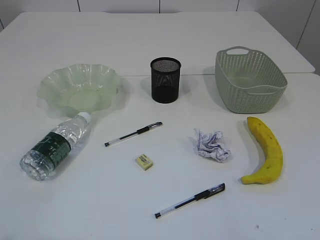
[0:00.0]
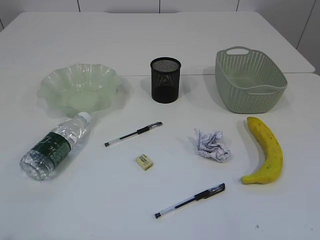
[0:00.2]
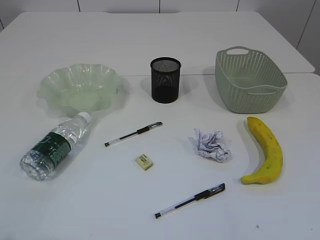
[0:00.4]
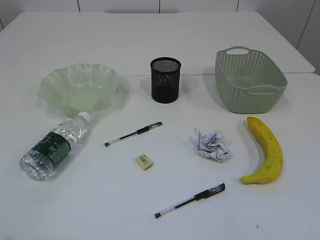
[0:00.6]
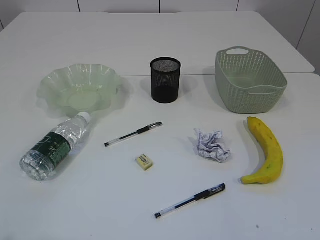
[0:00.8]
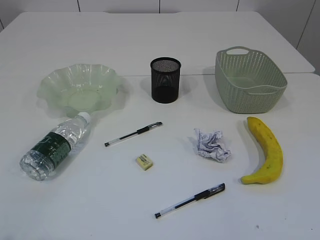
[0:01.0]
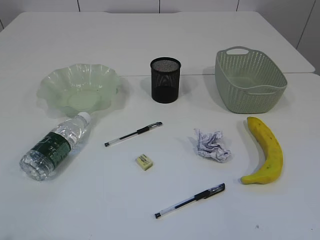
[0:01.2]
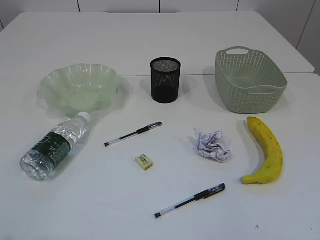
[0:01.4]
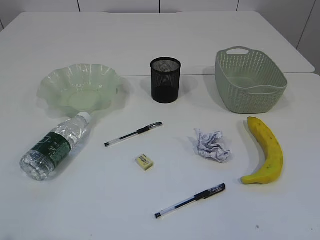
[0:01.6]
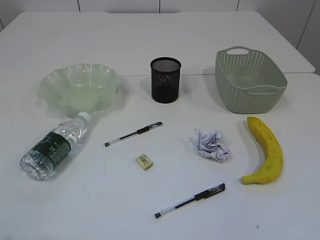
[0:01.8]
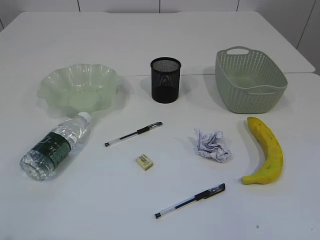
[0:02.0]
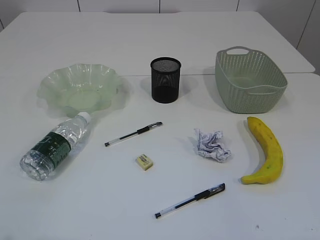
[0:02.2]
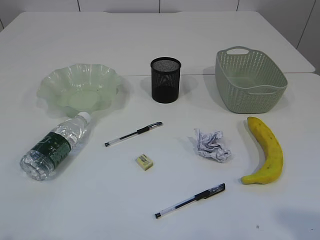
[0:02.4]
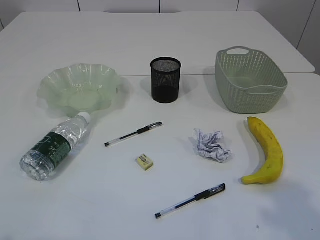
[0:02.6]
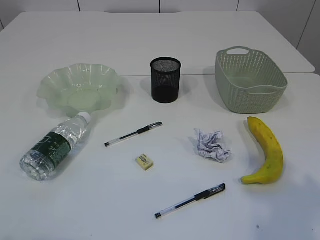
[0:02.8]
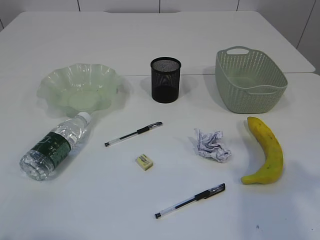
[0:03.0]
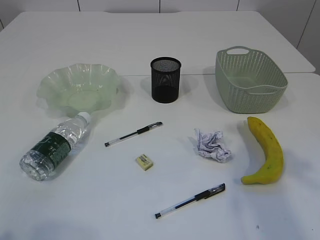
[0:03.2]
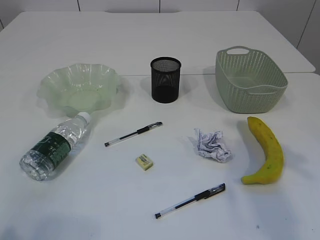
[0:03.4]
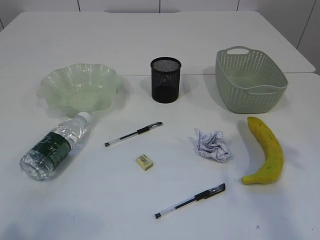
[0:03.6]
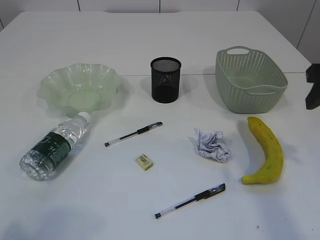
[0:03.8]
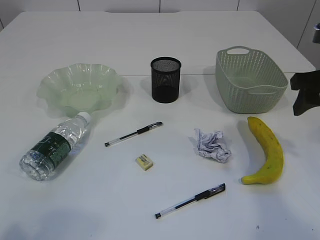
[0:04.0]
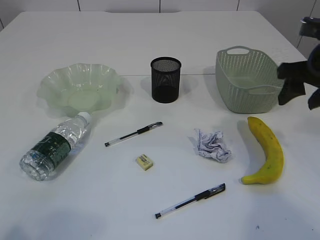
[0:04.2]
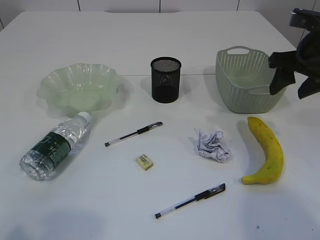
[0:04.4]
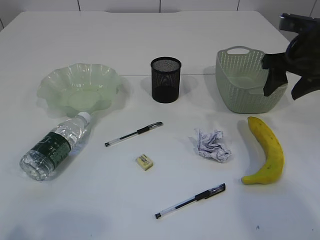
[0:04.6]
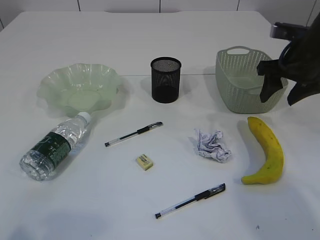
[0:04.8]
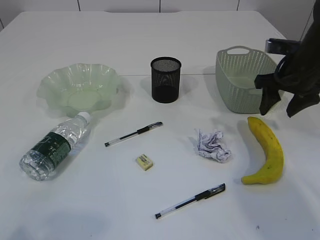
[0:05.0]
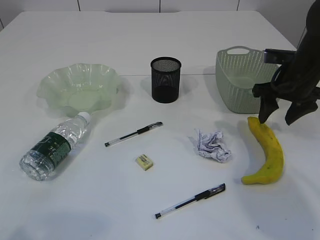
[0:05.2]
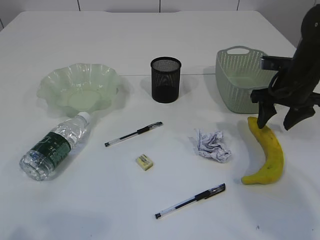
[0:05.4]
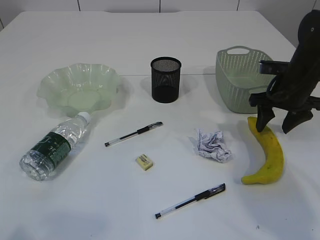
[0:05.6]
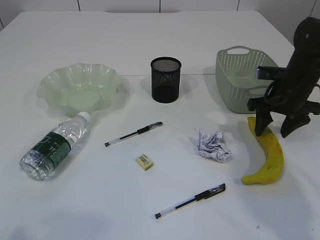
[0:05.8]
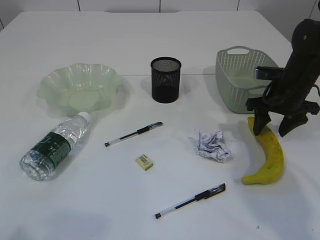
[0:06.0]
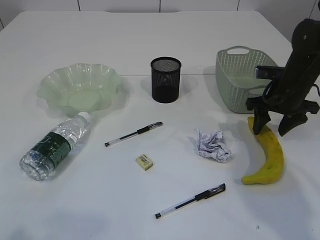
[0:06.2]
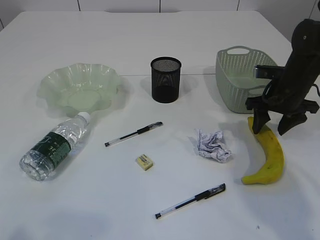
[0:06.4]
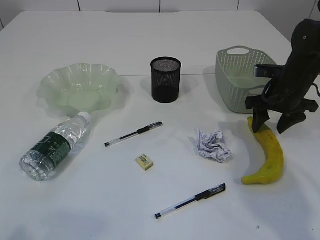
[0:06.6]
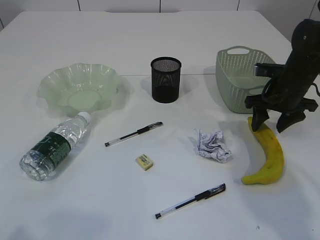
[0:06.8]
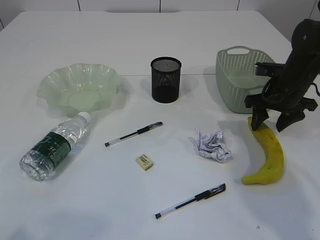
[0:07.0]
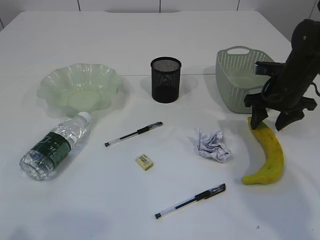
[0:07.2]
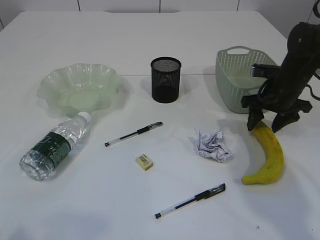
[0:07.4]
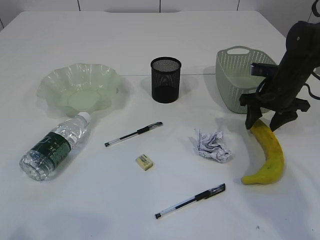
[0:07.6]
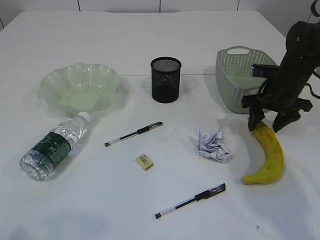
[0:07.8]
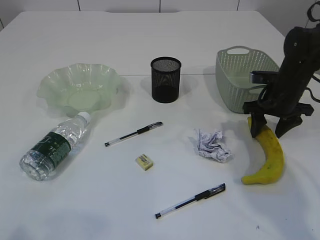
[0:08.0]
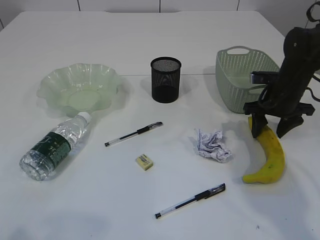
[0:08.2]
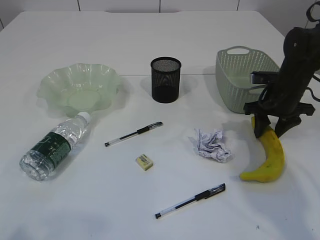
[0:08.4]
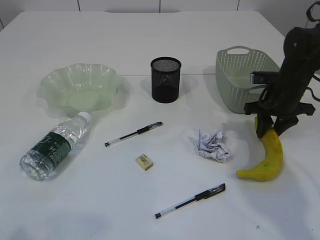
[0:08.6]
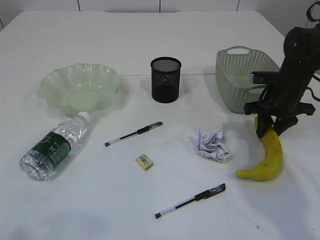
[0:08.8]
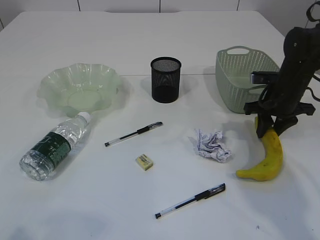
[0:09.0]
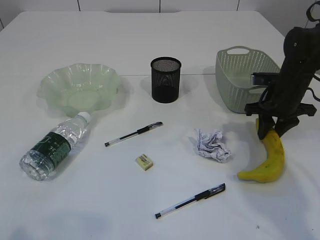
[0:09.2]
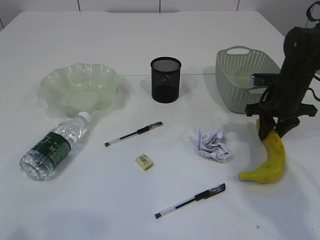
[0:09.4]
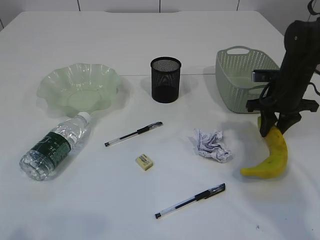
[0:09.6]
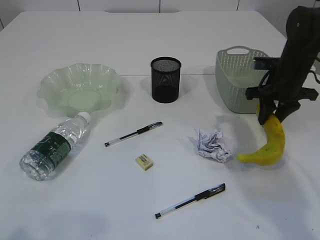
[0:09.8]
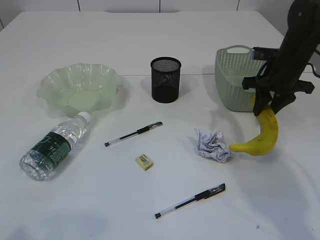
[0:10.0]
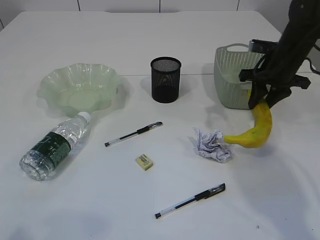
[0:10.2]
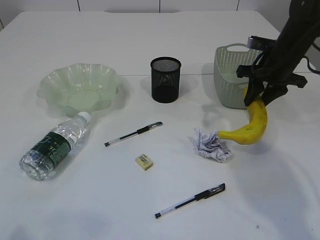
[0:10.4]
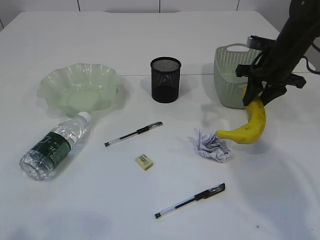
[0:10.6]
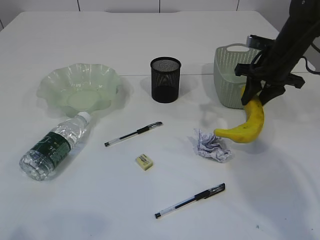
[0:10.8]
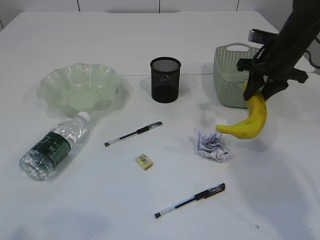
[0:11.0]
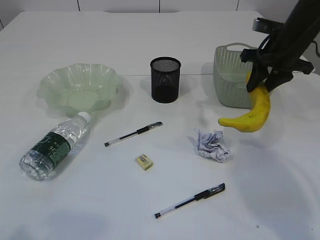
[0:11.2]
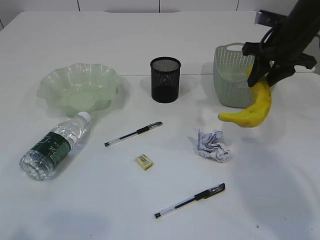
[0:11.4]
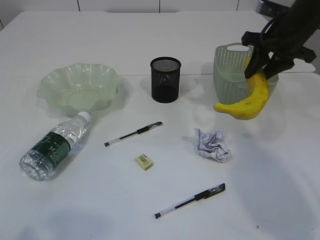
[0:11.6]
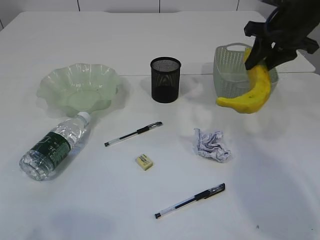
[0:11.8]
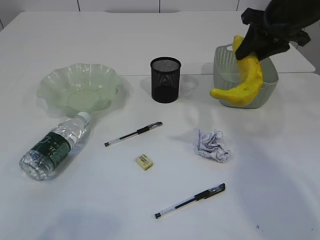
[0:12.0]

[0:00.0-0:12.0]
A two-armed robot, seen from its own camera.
0:01.6 to 0:03.0: The right gripper travels forward and upward by about 20 cm.
0:03.0 to 0:04.4: The right gripper moves forward and downward, about 20 cm.
0:04.4 to 0:06.0: The right gripper shifts roughly 10 cm downward and forward.
0:06.0 to 0:07.6: There are only small adjustments of the grippers.
0:07.6 to 0:09.0: The right gripper closes up.
0:09.0 to 0:10.4: The right gripper heads upward, covering roughly 5 cm.
0:10.4 to 0:12.0: The right gripper travels upward by approximately 10 cm.

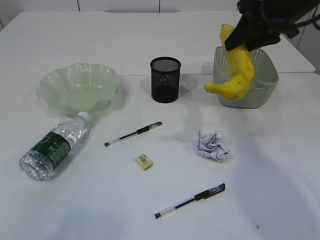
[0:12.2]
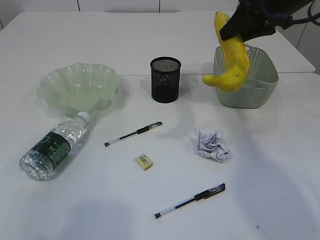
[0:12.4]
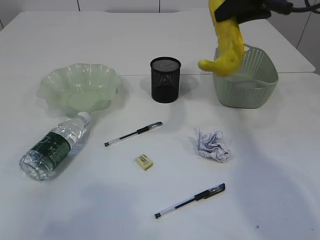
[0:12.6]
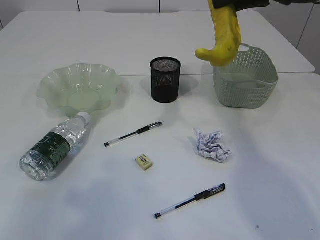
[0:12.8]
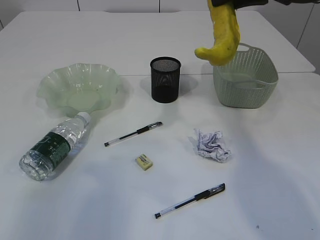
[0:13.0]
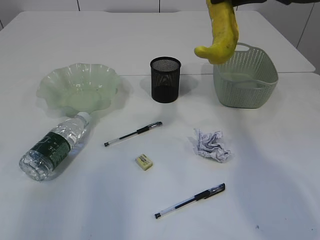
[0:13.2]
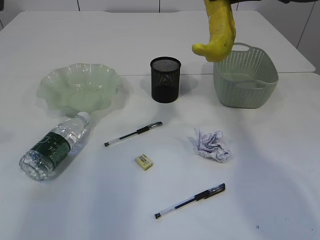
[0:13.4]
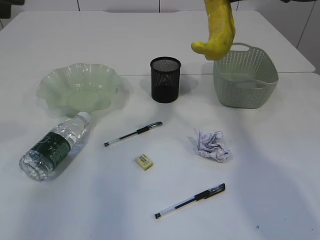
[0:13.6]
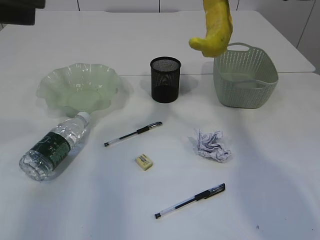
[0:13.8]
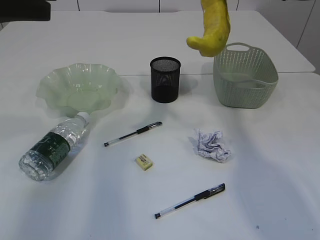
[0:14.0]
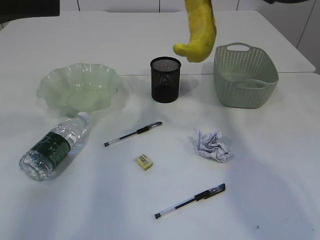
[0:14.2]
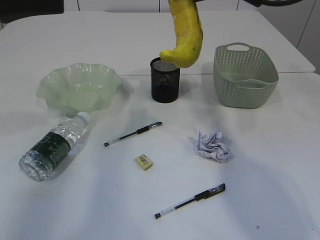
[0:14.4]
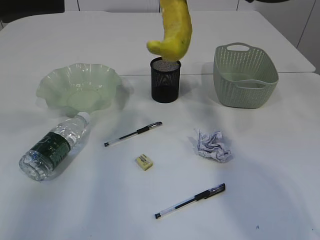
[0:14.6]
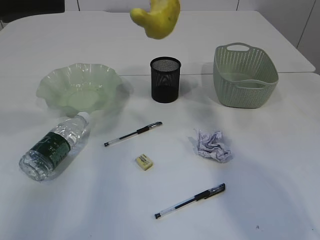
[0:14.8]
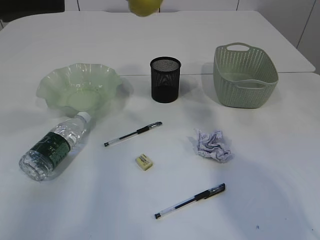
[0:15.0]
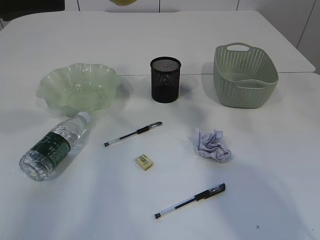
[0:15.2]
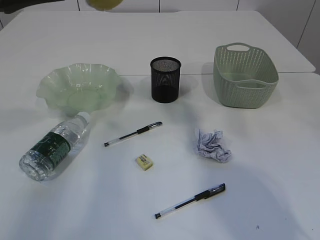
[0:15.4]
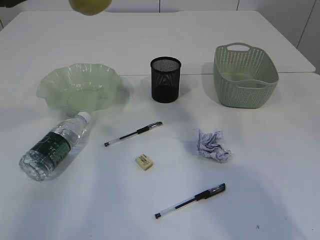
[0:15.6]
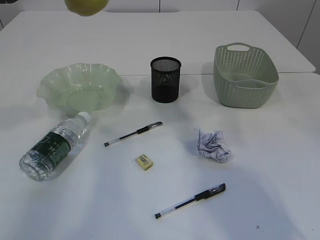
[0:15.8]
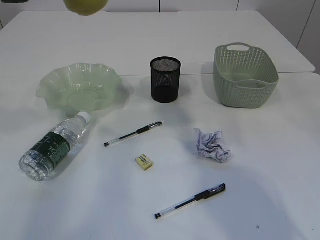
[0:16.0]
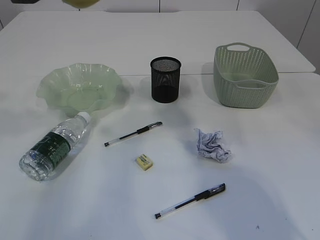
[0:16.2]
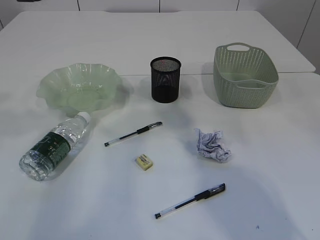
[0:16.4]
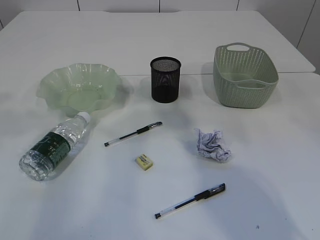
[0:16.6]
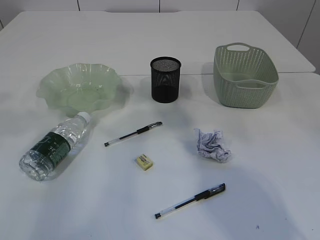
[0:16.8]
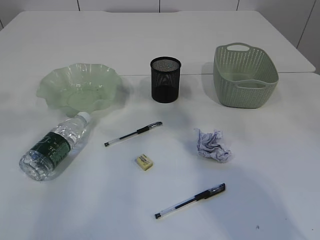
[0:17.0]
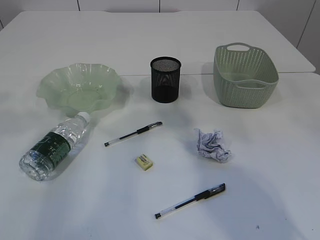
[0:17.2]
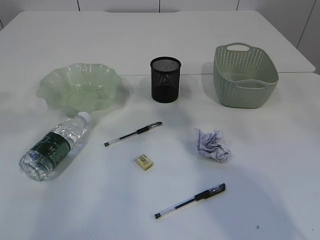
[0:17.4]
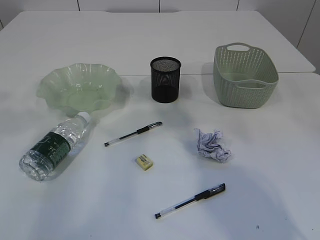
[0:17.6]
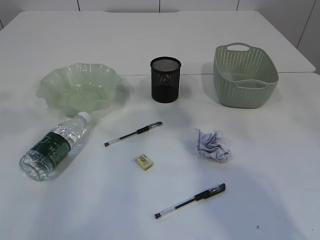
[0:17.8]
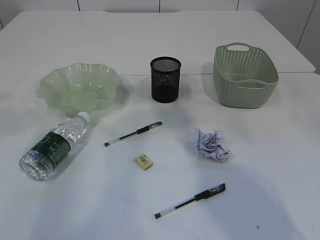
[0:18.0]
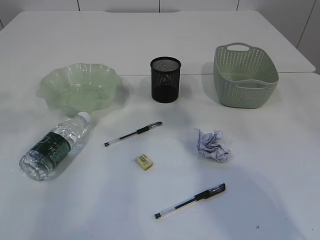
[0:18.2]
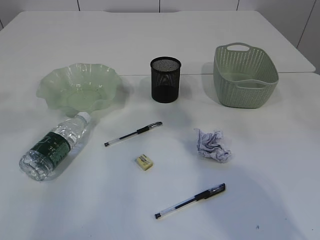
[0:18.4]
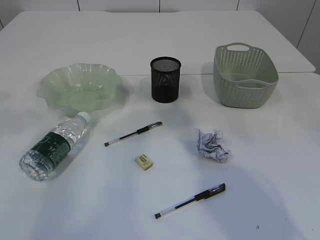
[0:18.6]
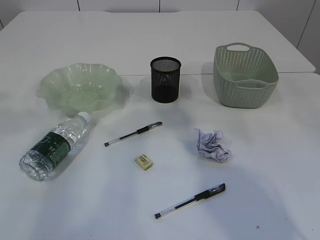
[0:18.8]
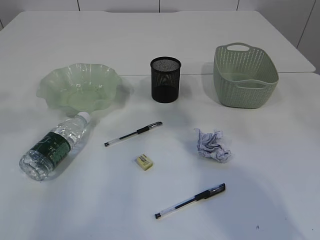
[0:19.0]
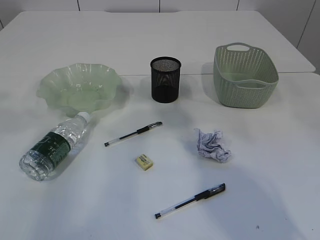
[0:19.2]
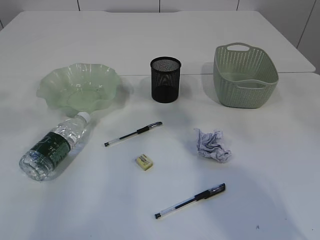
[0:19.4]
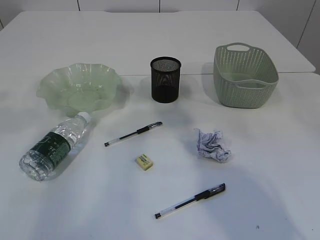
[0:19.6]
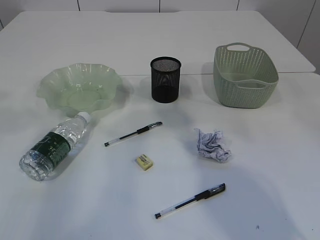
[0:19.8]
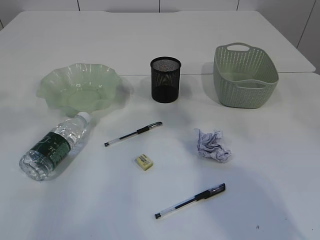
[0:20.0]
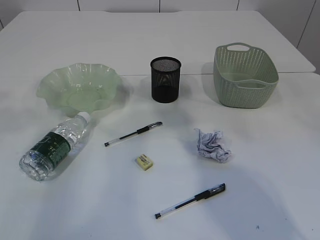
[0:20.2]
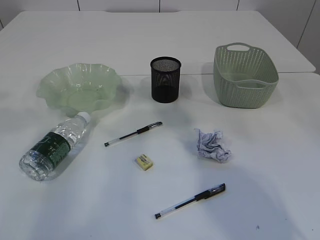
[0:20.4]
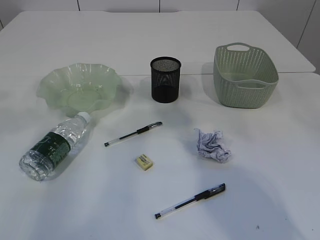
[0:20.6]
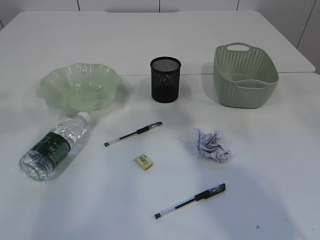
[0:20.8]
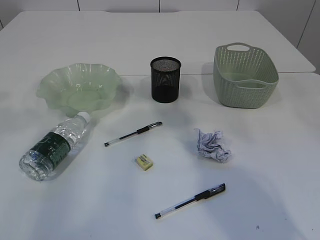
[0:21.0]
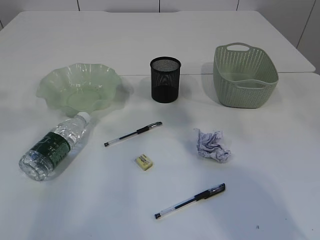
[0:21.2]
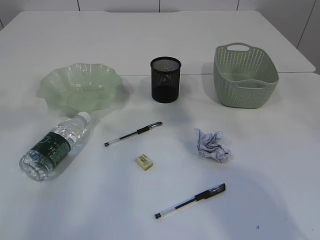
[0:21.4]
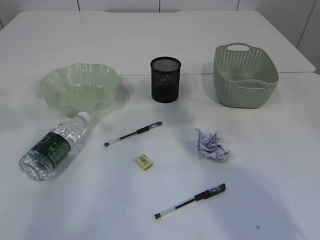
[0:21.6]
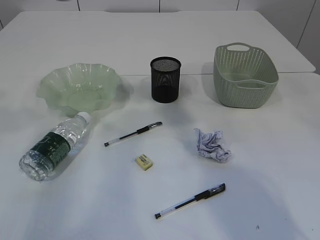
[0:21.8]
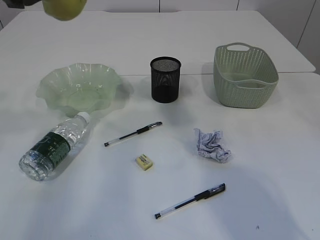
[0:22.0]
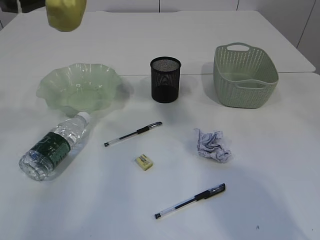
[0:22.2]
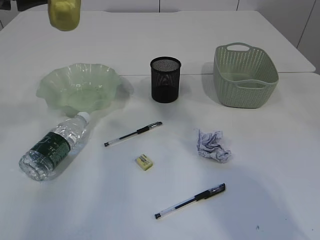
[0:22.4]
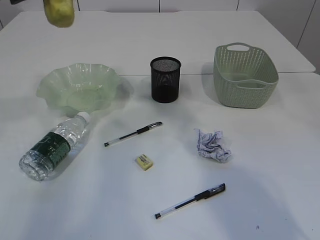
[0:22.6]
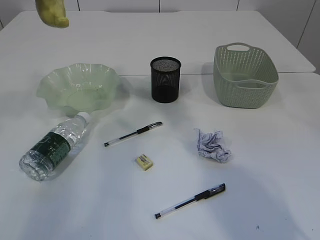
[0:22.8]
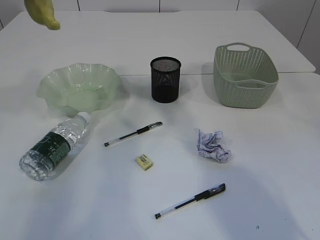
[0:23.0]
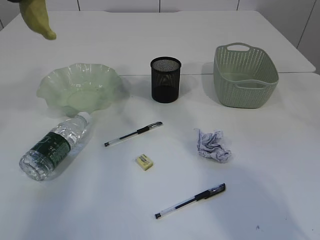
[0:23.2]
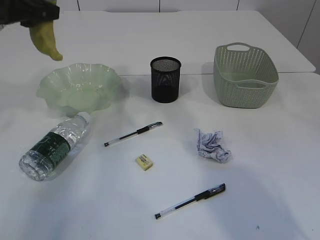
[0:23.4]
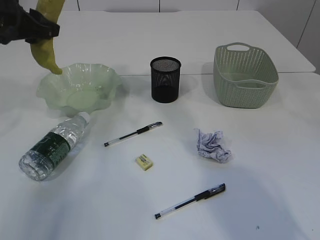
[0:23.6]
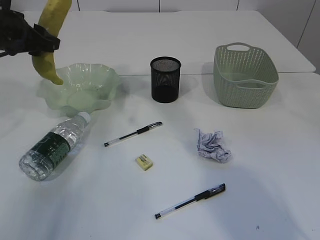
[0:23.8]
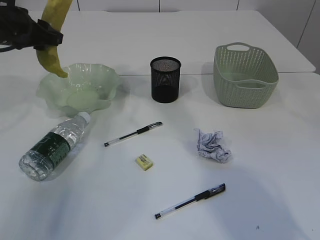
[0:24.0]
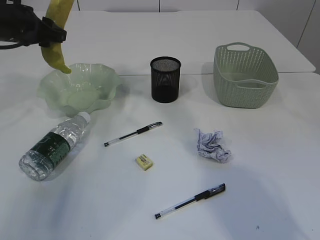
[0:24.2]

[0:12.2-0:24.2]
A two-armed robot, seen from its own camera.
Step, 0:12.2 to 0:22.8: Hand over the banana.
0:12.2 to 0:13.8: The left gripper shifts some 25 cm forward; the right gripper is displaced upward by roughly 5 cm.
0:13.8 to 0:15.2: The right gripper is displaced to the left and upward by about 10 cm.
0:15.2 to 0:16.6: The grippers move only a little.
0:16.6 to 0:18.2: Neither gripper changes place.
0:21.2 to 0:22.6: The left gripper shifts by approximately 5 cm.
0:22.6 to 0:24.2: The left gripper travels forward and downward by about 15 cm.
